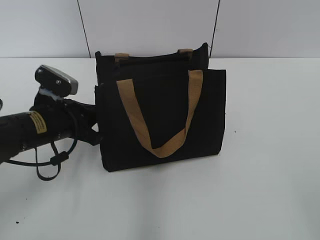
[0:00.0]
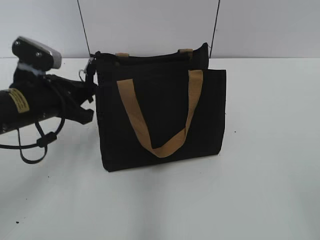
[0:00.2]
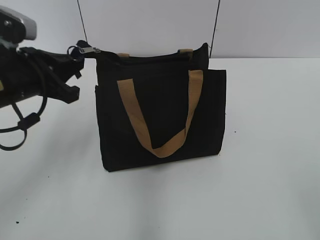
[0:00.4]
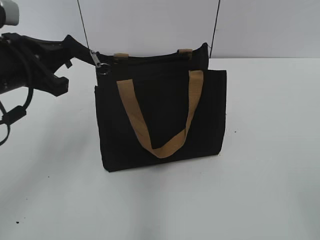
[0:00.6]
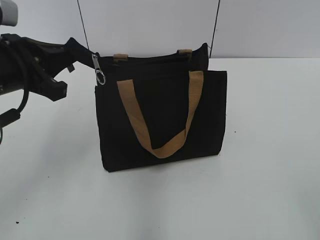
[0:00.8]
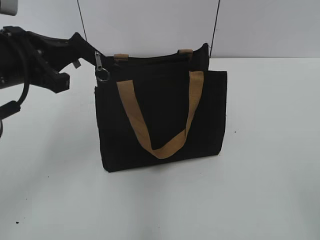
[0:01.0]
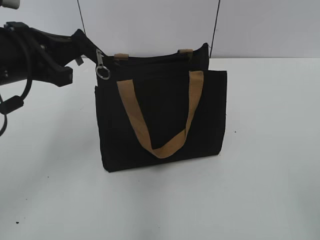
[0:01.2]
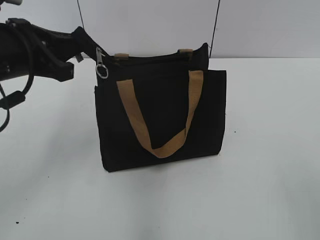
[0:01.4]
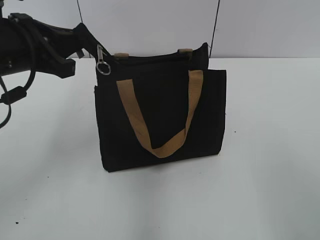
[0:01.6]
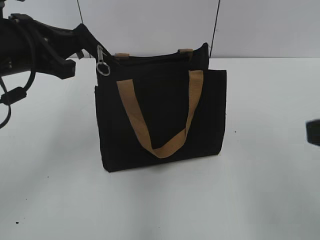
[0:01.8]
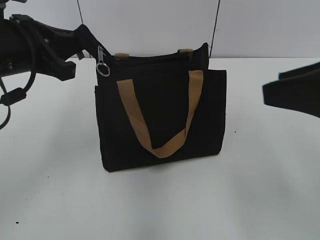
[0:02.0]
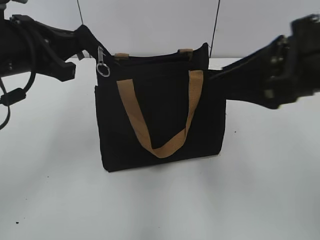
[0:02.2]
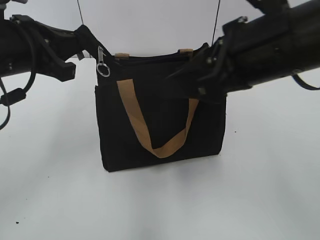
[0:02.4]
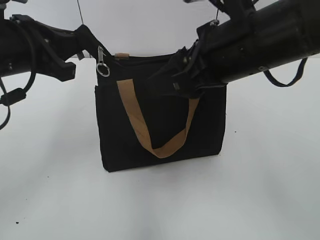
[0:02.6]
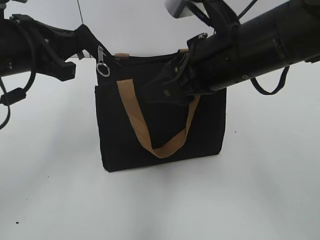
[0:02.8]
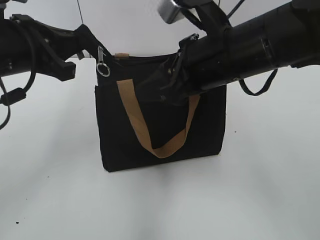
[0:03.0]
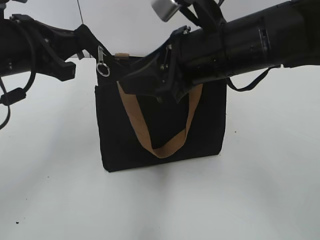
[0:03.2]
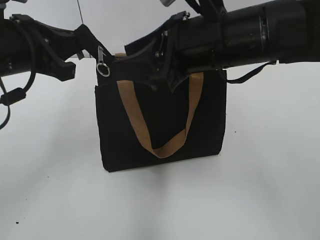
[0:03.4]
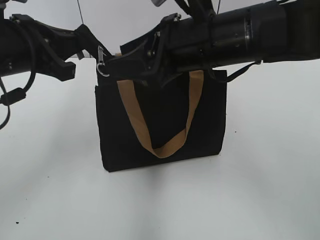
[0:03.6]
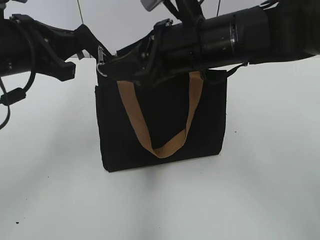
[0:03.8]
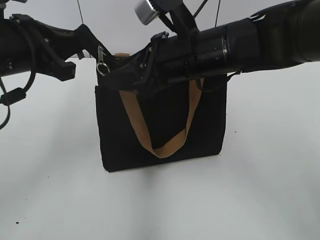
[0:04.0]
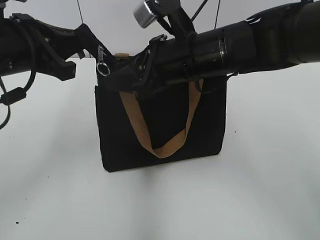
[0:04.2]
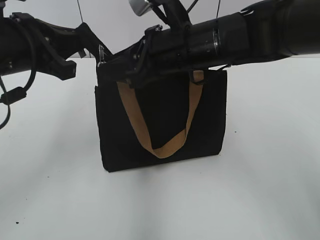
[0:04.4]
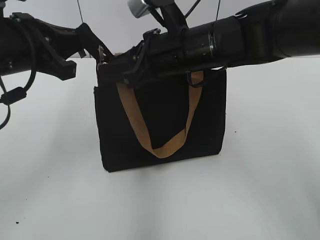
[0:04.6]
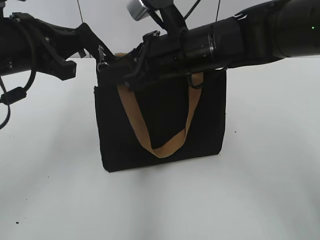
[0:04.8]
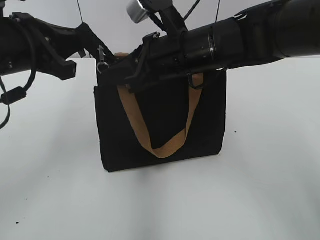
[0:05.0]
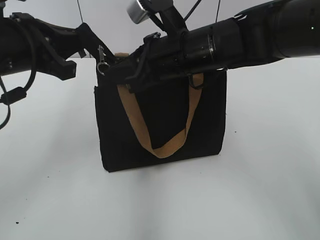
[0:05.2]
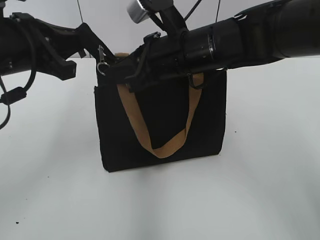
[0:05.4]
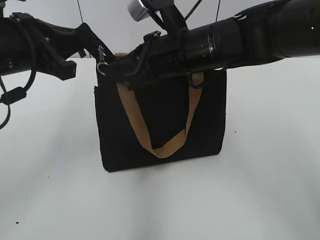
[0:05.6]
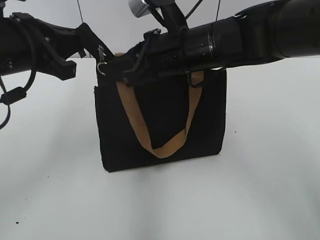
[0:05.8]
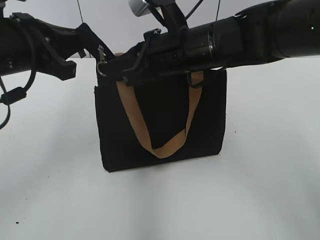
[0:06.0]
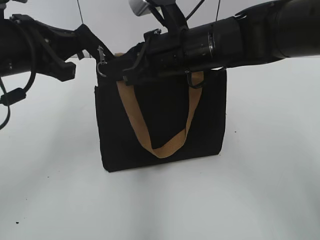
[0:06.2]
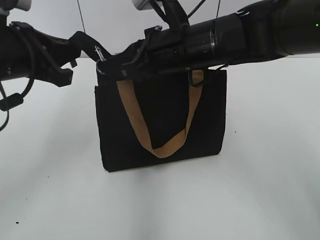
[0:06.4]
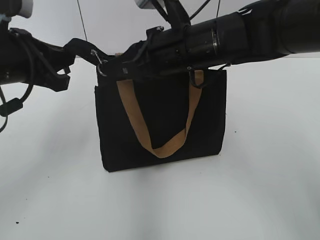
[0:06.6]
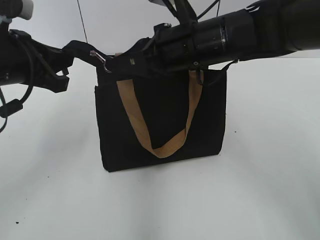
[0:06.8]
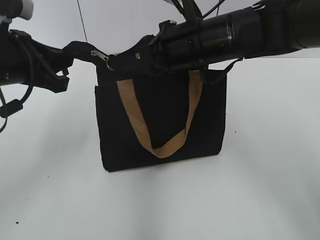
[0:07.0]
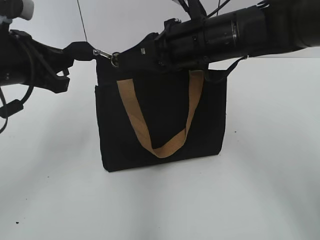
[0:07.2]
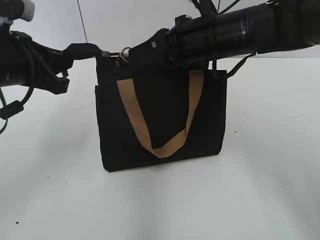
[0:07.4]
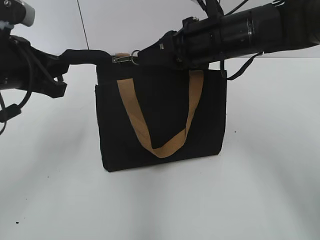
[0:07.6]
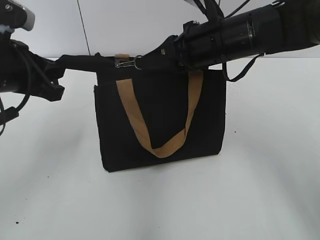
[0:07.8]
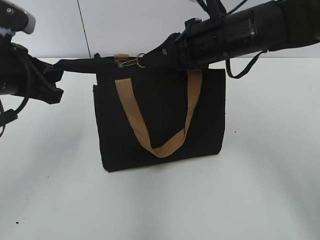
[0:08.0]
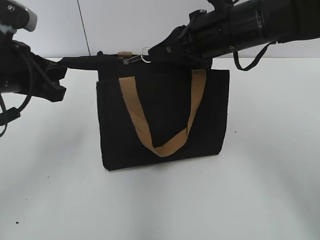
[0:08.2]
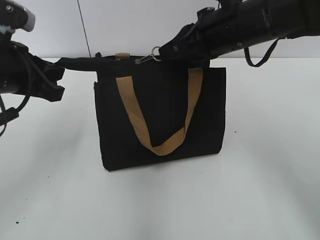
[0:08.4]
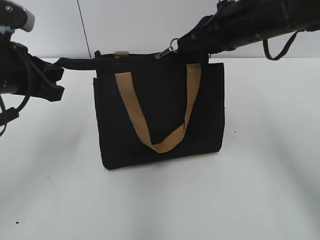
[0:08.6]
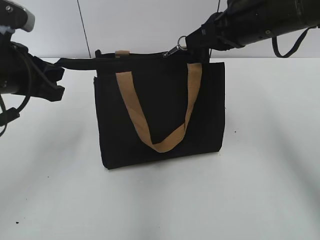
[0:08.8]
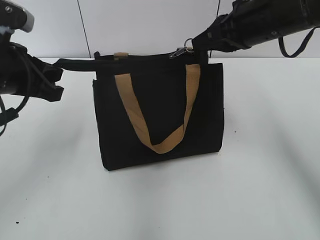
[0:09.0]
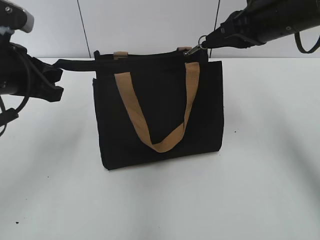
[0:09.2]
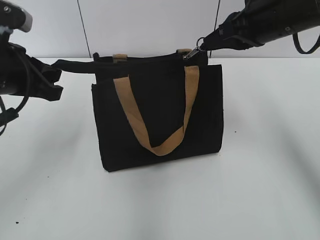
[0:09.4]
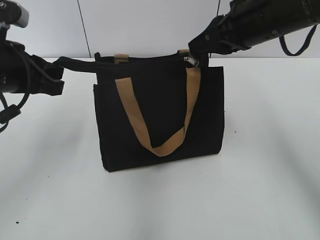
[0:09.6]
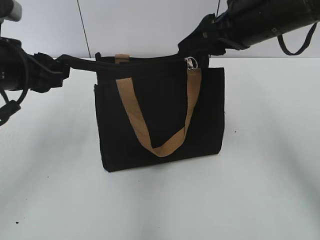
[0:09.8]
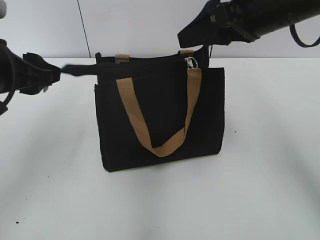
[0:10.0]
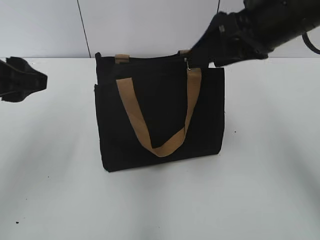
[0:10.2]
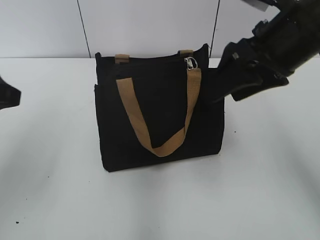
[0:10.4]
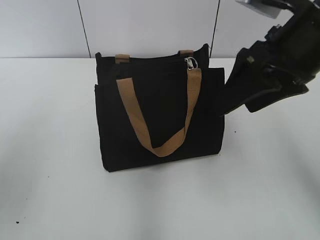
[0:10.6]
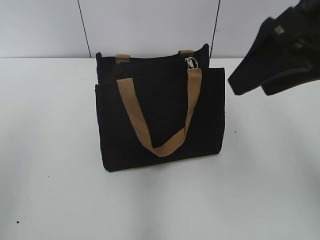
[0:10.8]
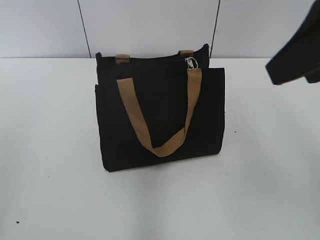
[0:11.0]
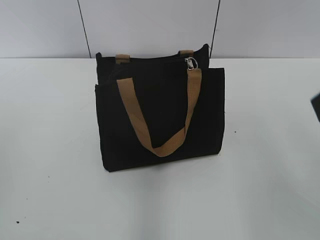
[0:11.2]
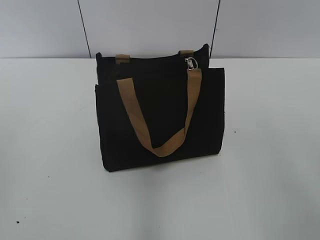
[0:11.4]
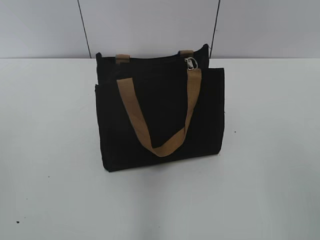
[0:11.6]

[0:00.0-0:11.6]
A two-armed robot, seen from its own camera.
Step, 0:00.0 to 0:09.6: Zip up the bag with your right hand.
Step, 0:09.8 to 0:10.0: Grab the zipper with your left hand.
0:00.0 to 0:01.4: The left gripper is displaced upward by about 15 cm.
0:01.4 to 0:02.8: The right gripper goes roughly 30 cm forward and to the left.
0:02.8 to 0:04.4: The right gripper heads forward, covering roughly 5 cm.
0:04.4 to 0:05.8: The right gripper closes up.
0:05.8 to 0:07.2: The grippers stay close to where they were, moving slightly.
0:07.2 to 0:08.8: The right gripper moves to the right, roughly 10 cm.
0:08.8 to 0:10.2: The right gripper changes place by roughly 5 cm, and opens, while the left gripper opens.
0:10.2 to 0:11.6: The right gripper shifts about 25 cm backward; the left gripper heads backward and to the left, covering about 20 cm.

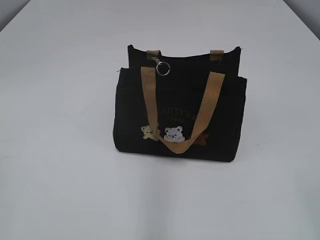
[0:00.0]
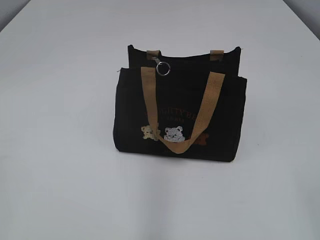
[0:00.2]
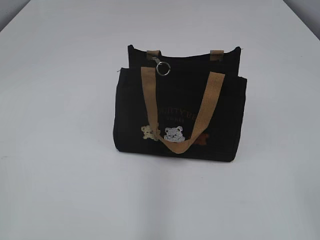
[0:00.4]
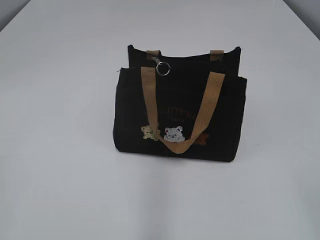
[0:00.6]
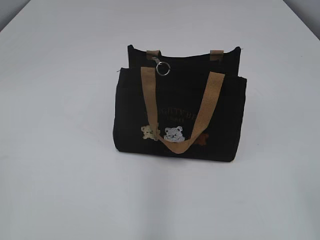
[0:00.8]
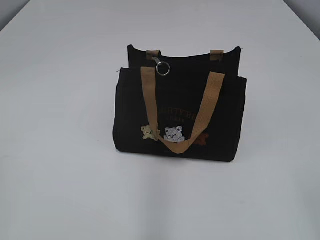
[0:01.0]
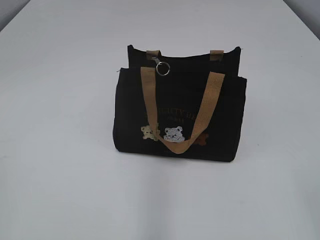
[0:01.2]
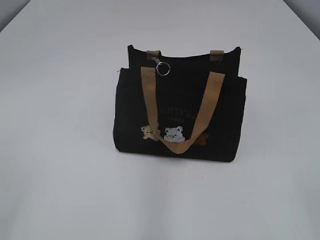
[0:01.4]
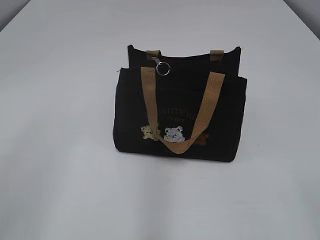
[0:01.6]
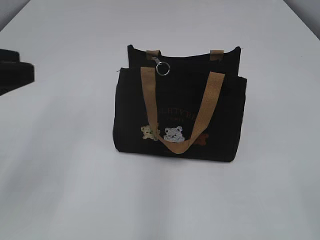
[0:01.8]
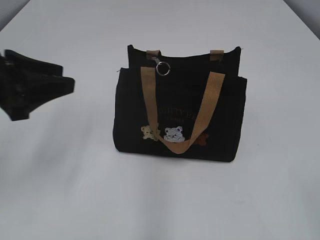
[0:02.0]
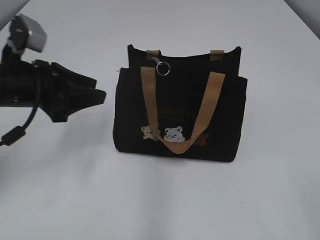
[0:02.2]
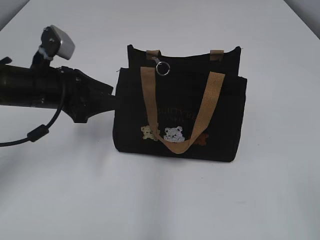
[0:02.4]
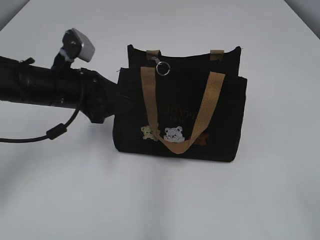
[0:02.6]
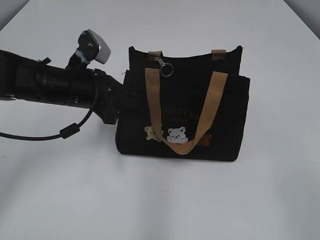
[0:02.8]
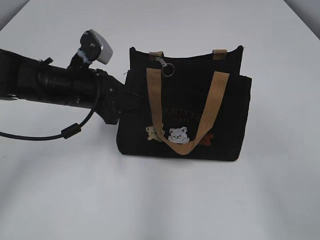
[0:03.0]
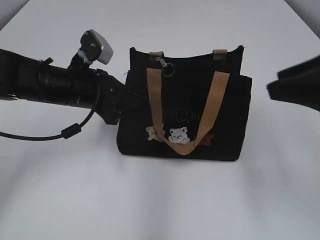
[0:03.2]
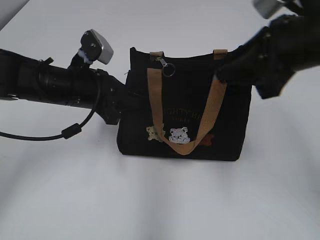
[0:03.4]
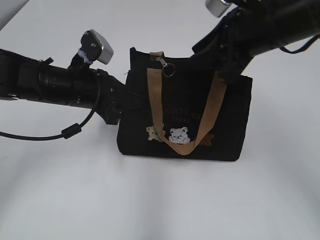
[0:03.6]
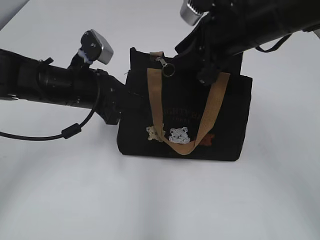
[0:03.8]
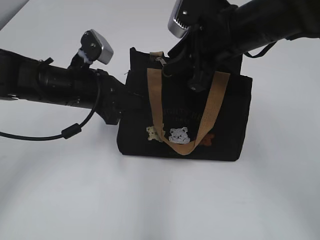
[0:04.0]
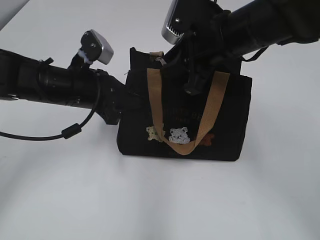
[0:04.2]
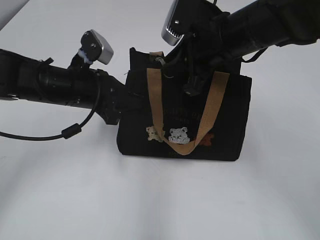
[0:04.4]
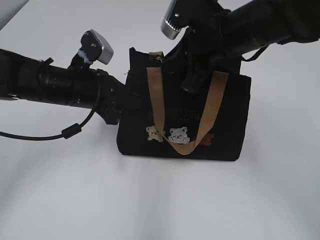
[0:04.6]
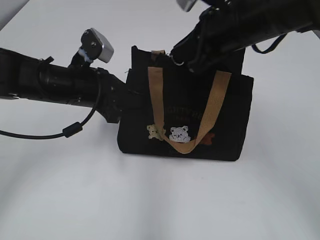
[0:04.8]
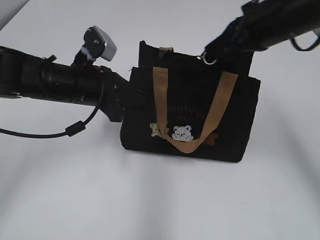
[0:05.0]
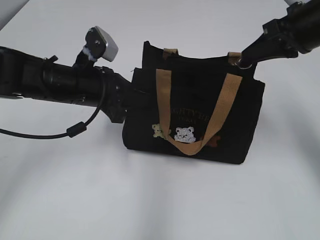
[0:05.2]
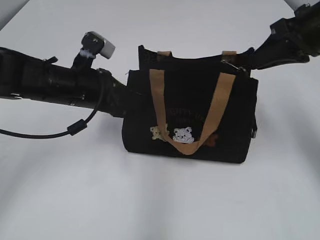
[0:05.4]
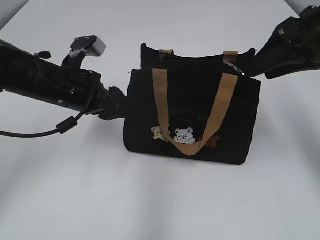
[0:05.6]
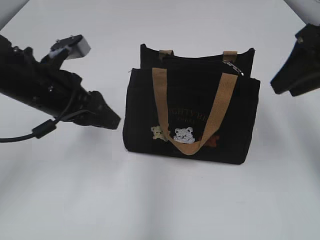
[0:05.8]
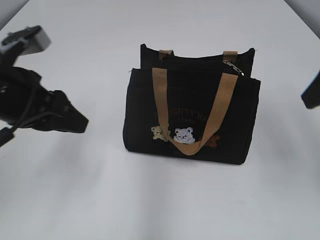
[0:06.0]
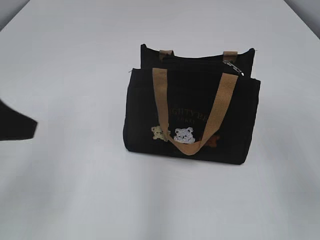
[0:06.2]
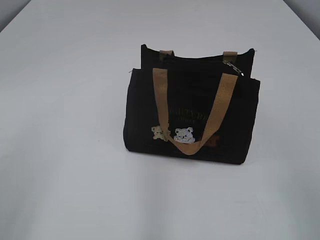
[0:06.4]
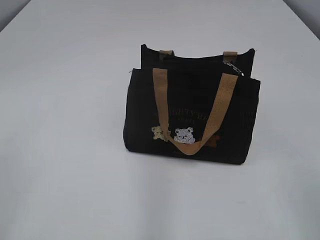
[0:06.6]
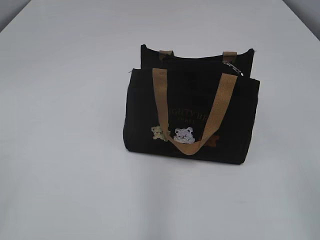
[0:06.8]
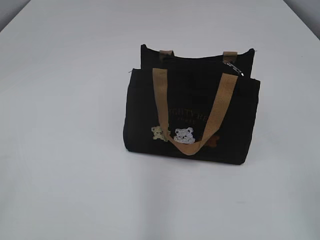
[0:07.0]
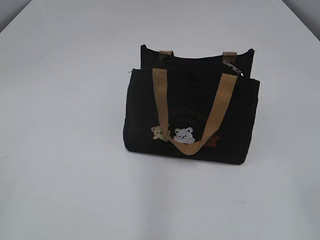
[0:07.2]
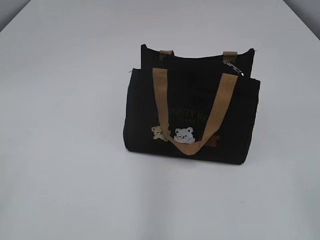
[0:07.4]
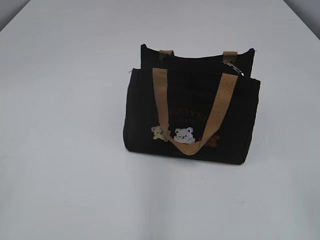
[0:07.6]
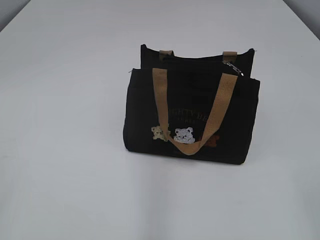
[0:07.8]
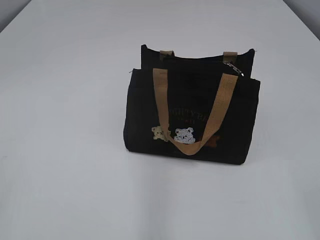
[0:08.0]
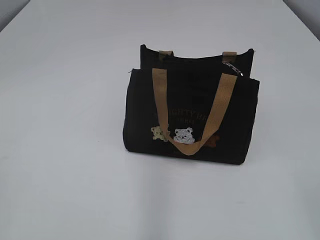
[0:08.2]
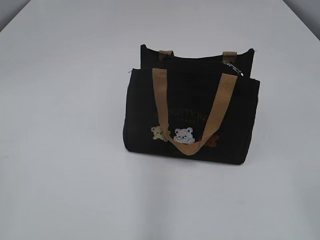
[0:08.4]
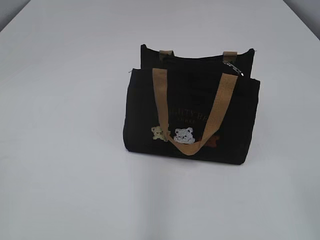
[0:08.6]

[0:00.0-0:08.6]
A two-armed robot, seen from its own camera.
Step, 0:00.0 to 0:05.2: Pull open the zipper with your right hand.
Step, 0:05.4 to 0:05.6: Hold the bag with your left hand.
0:01.4 to 0:02.8: The left gripper heads forward and to the right, covering approximately 35 cm, and closes.
0:02.8 to 0:04.4: The right gripper moves forward and to the left, roughly 35 cm.
0:04.4 to 0:05.8: The left gripper moves about 5 cm, and opens. The right gripper is displaced to the right, upward and backward by approximately 15 cm, and opens its fingers.
0:05.8 to 0:07.2: The right gripper heads backward, covering roughly 30 cm. Meanwhile the left gripper shifts approximately 35 cm backward and to the left.
